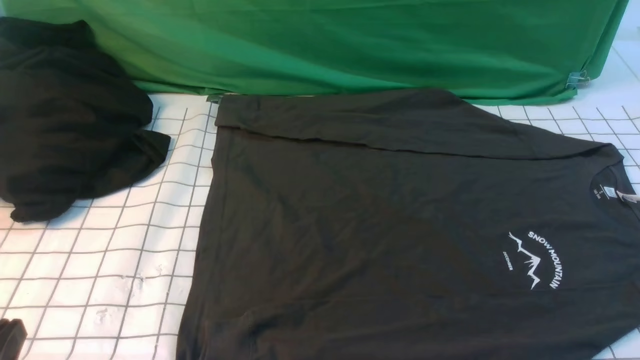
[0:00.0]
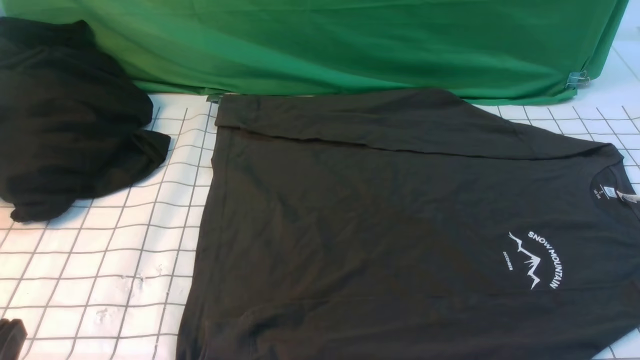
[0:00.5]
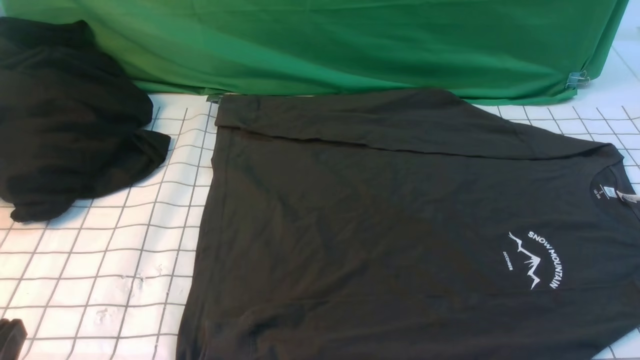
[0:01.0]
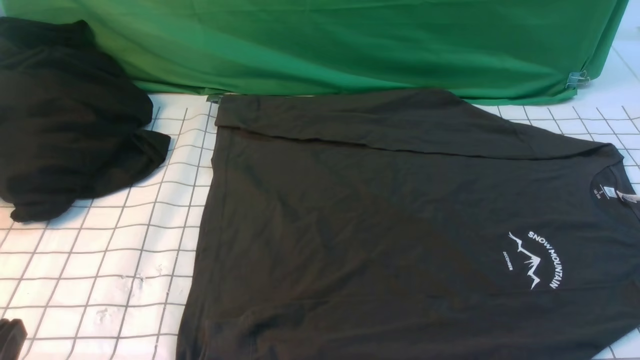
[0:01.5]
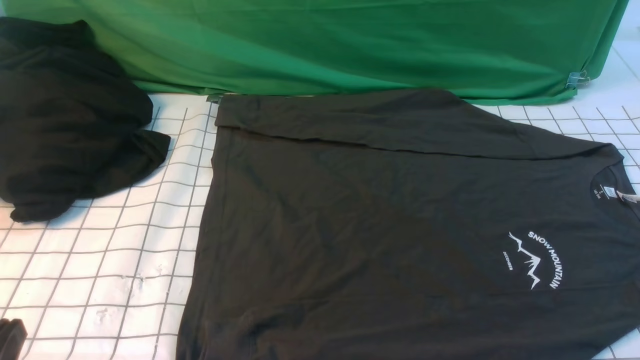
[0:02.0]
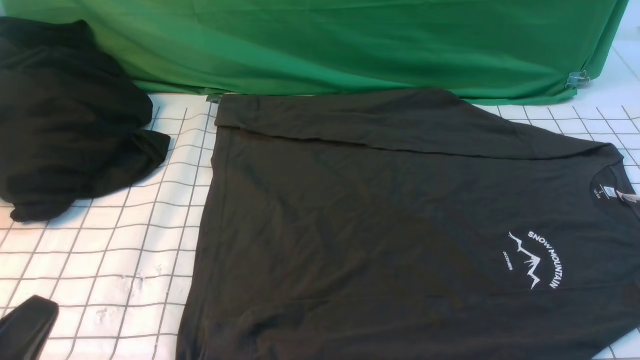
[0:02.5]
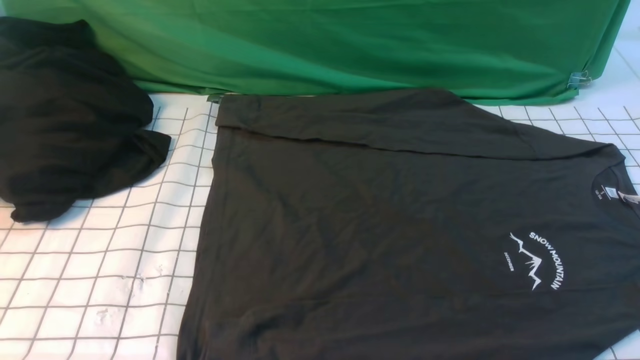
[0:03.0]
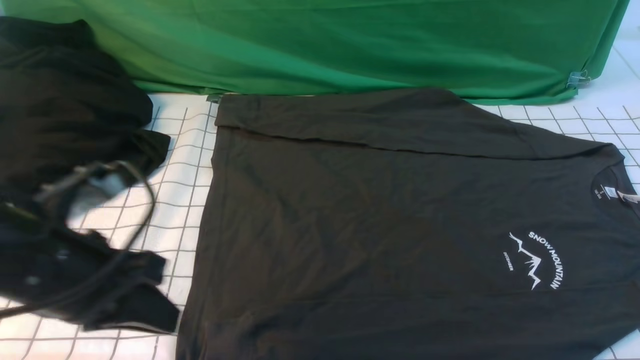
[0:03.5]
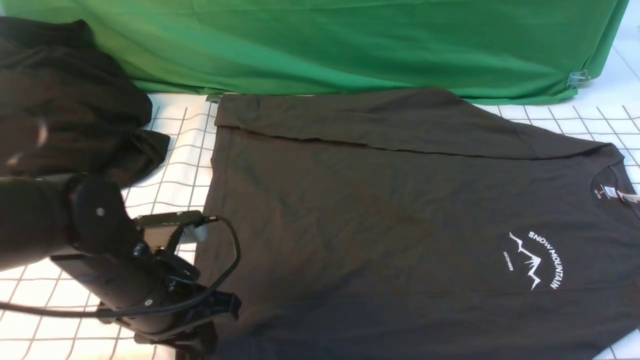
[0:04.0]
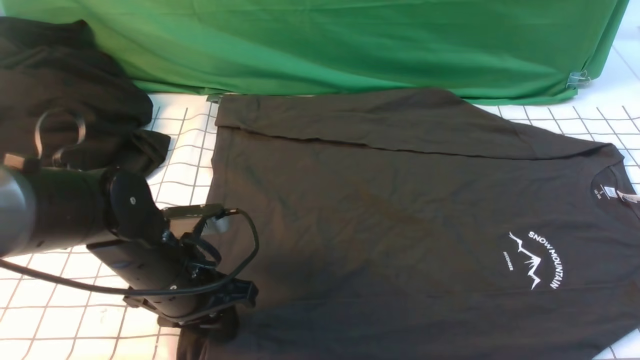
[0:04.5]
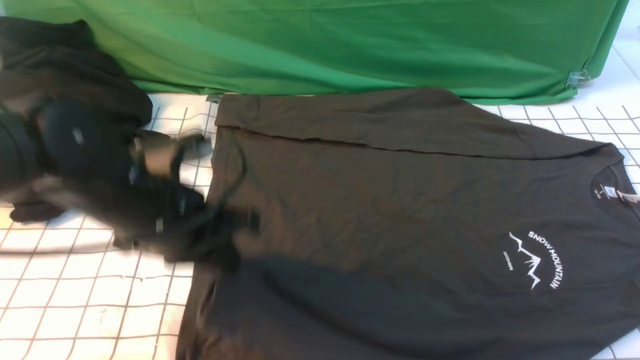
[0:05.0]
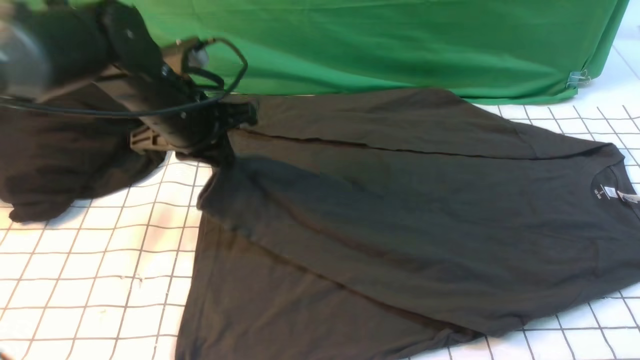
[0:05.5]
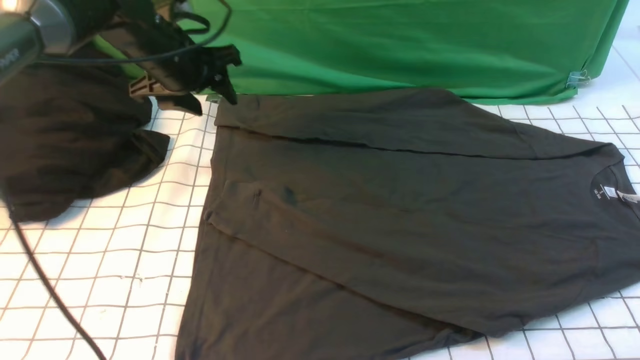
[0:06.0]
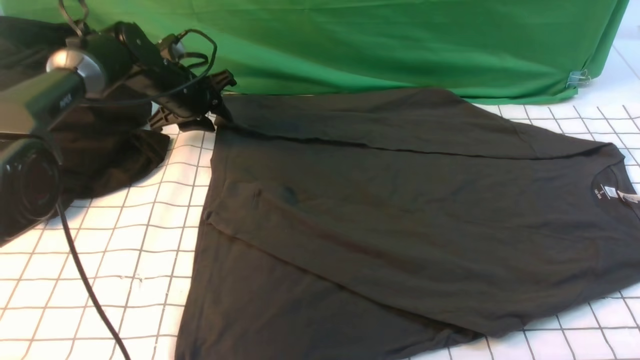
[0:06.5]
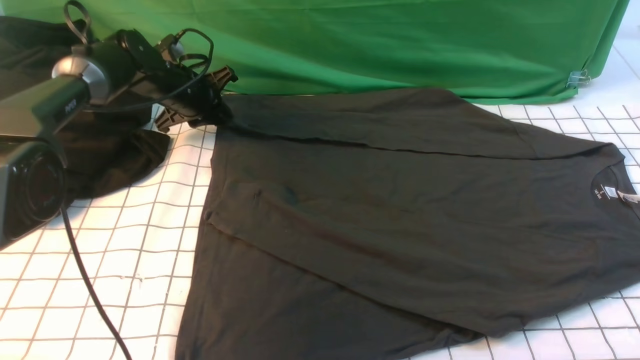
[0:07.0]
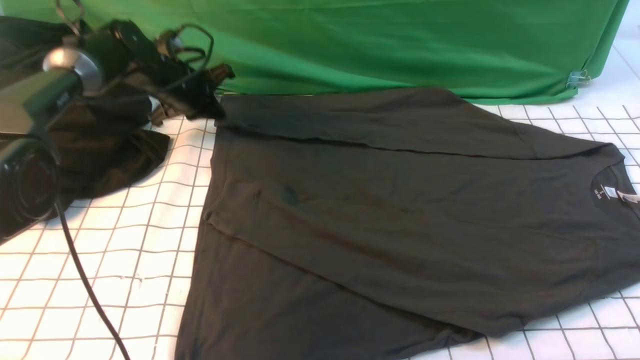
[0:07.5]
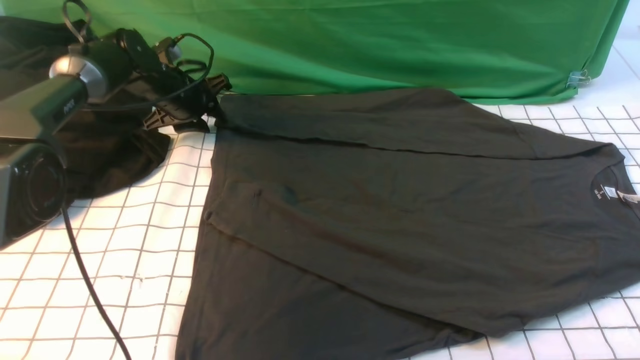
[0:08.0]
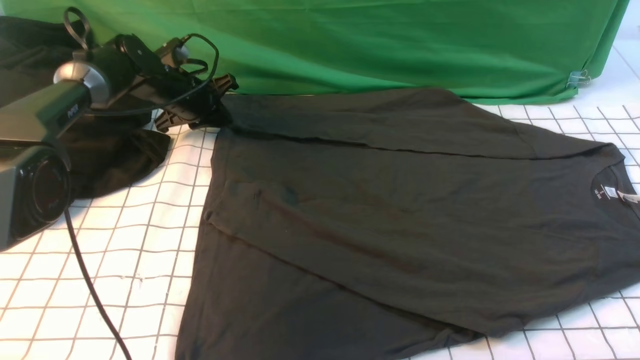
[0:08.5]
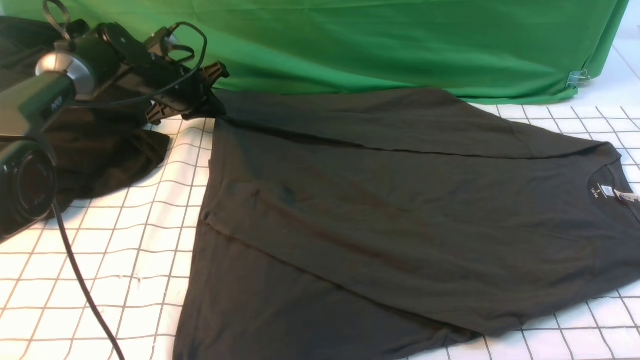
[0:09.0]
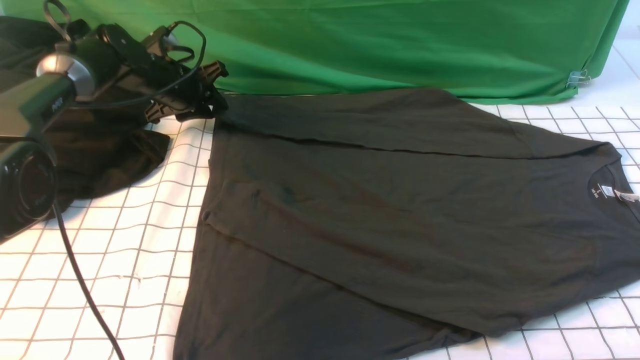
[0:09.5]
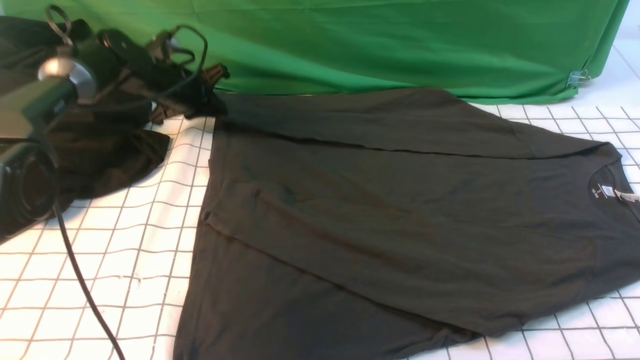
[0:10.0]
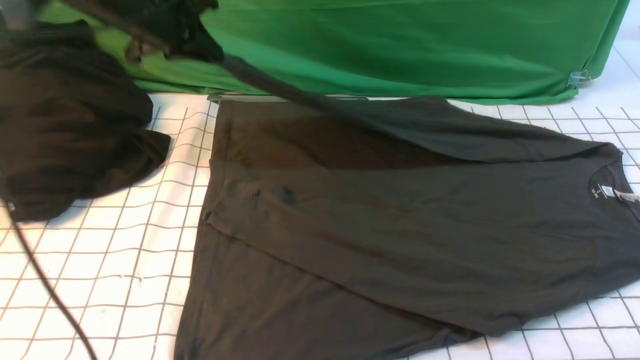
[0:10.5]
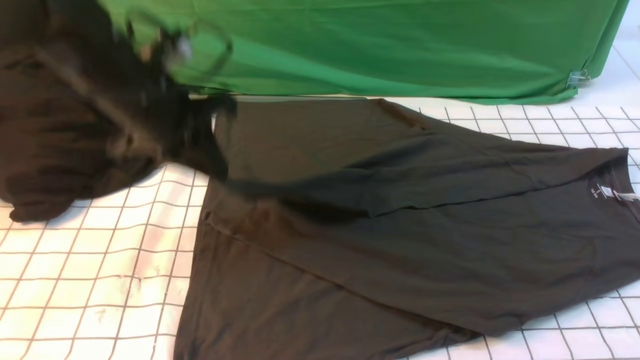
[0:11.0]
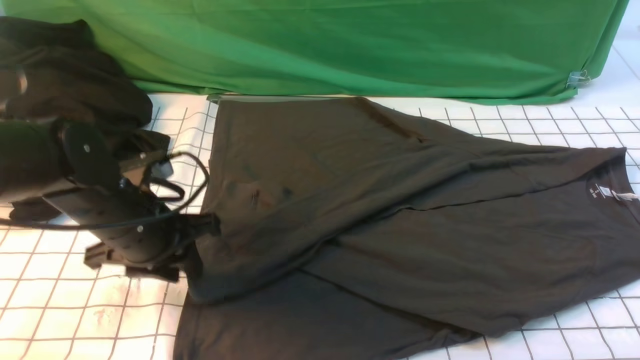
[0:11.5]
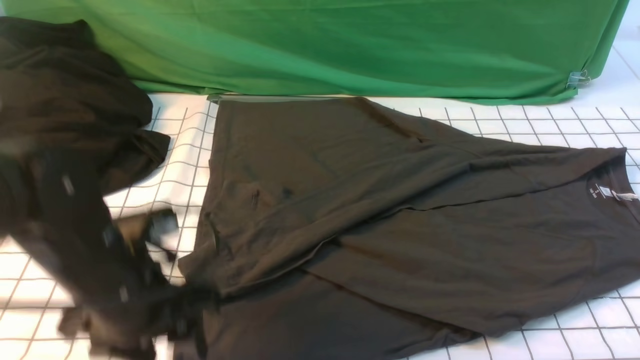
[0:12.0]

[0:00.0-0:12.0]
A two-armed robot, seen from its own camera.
Step, 0:00.0 to 0:04.5: use the left arm to clamp the cuff closest to it.
Step, 0:05.0 to 0:05.5: use the left arm to drag and place the cuff at the centered position on the left edge of the fabric.
Step, 0:06.0 to 0:09.5: use the left arm to clamp the cuff farthest from it.
Step, 0:10.5 to 0:11.5: use the left arm to drag and drop the cuff onto the cuff closest to the left arm.
0:02.0 to 0:04.0: The left gripper goes approximately 20 cm forward and to the right, and opens its fingers. Meanwhile the right gripper heads upward and forward, covering some 15 cm, and closes up.
0:04.0 to 0:06.0: The left gripper shifts some 25 cm forward, and opens up.
0:06.0 to 0:08.0: The left gripper travels downward and forward by roughly 10 cm, and closes, then opens again.
0:08.0 to 0:10.0: The left gripper closes.
0:10.0 to 0:12.0: The left gripper heads backward, covering approximately 30 cm, and opens its fingers.

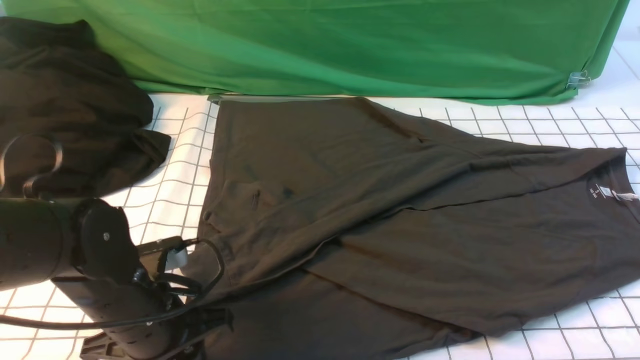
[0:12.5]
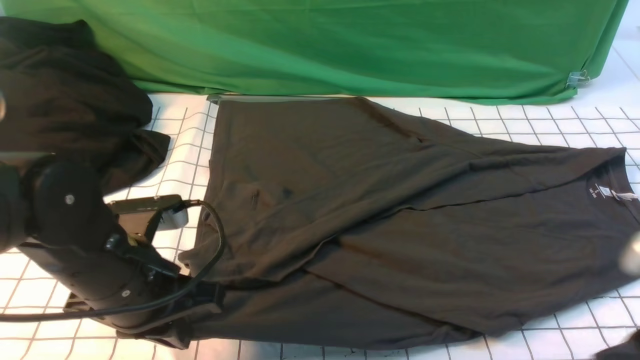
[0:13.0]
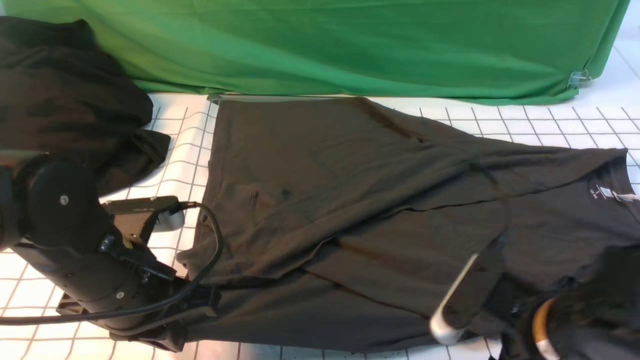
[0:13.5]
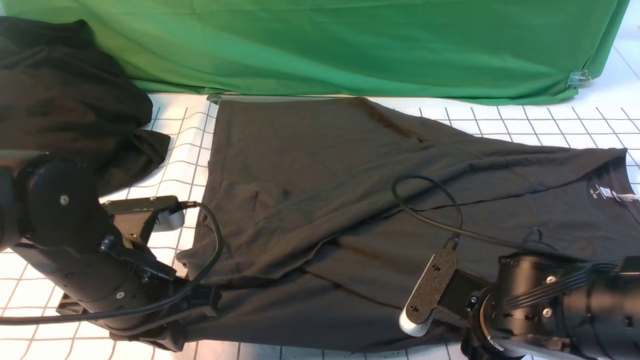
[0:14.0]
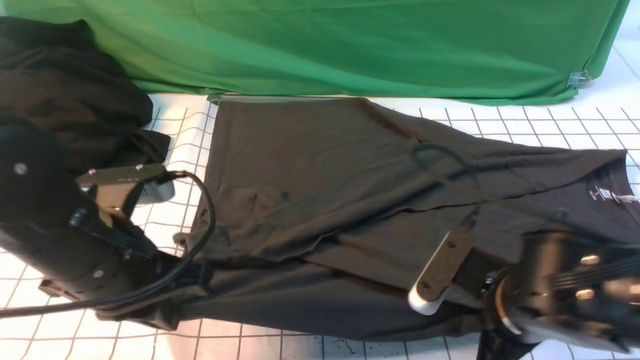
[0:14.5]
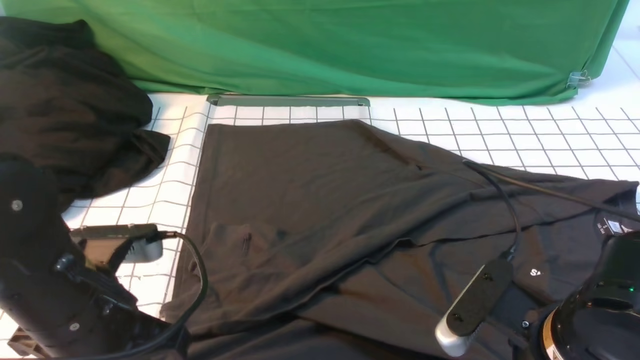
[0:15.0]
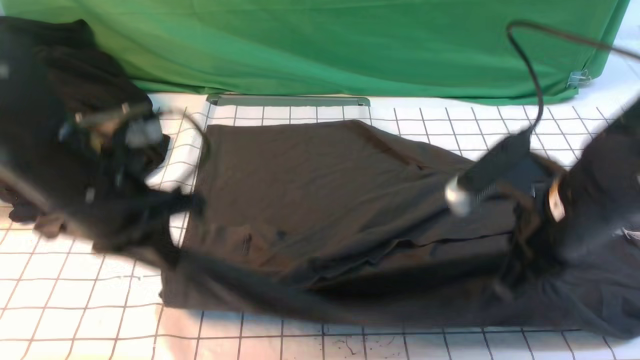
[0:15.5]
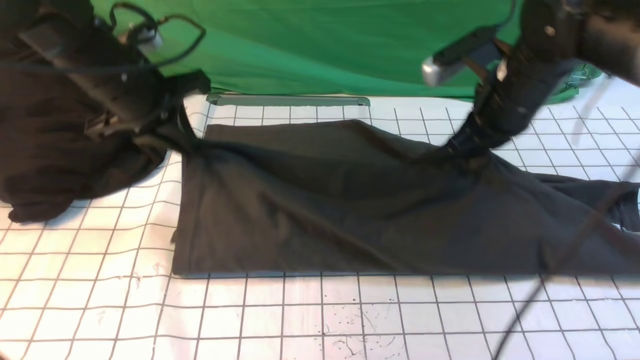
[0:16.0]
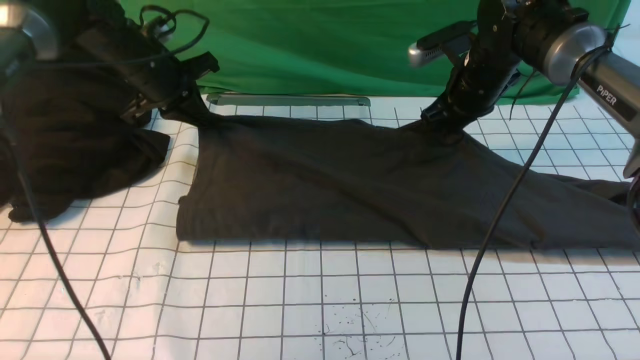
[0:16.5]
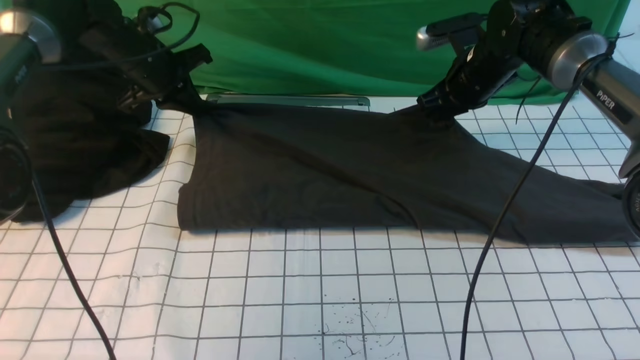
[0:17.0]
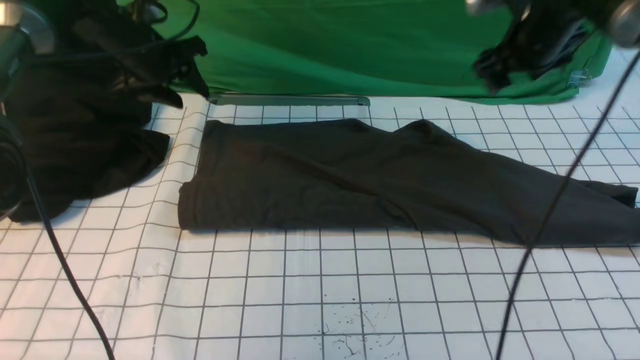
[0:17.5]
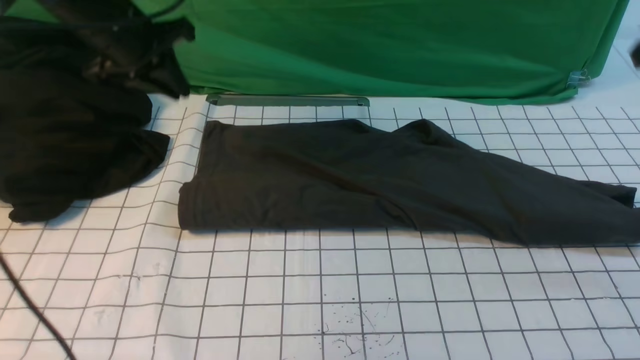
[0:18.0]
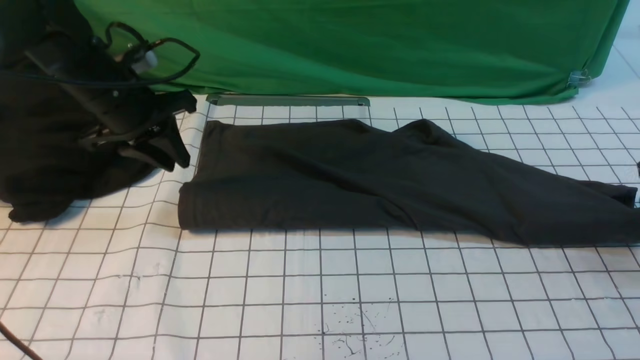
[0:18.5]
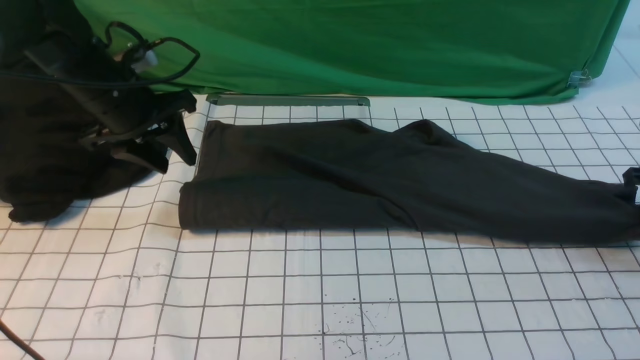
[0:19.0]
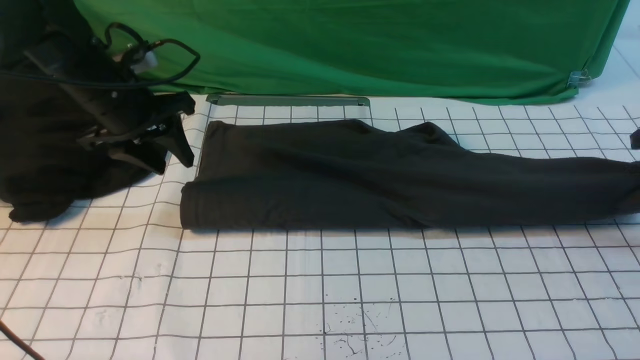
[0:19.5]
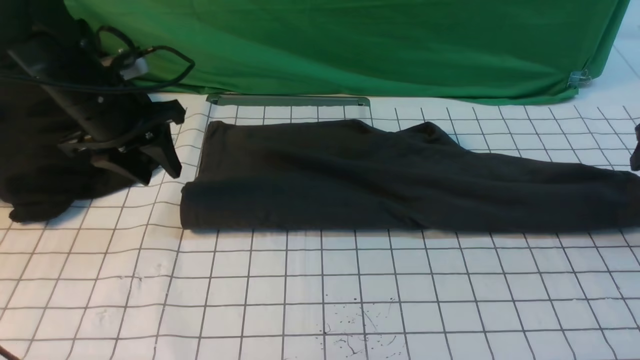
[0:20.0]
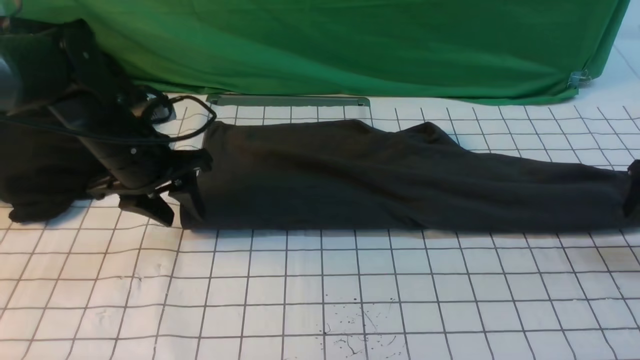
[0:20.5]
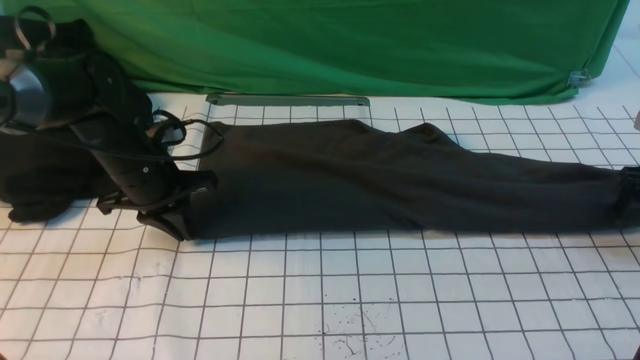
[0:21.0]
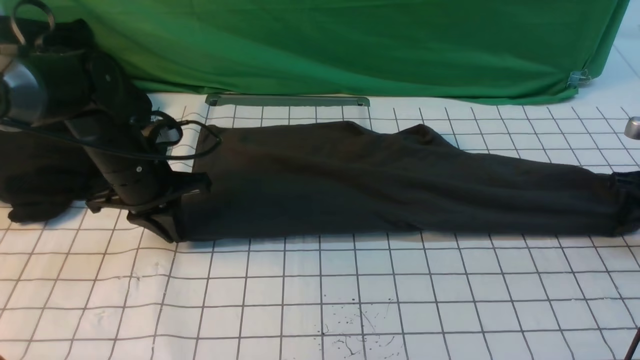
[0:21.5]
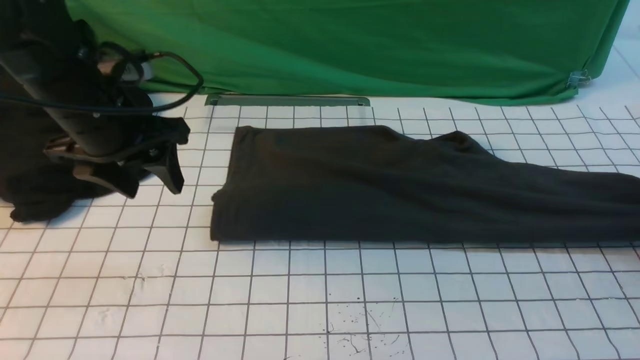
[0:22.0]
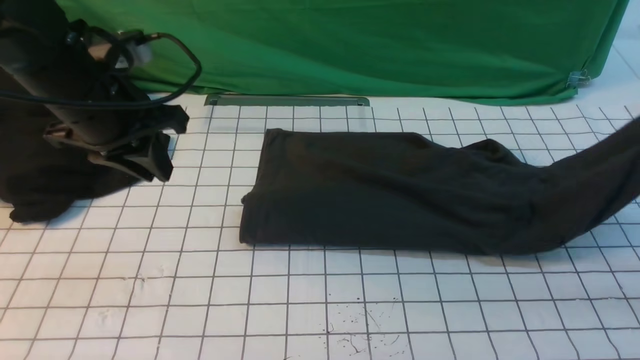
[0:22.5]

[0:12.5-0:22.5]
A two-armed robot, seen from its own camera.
Step, 0:12.5 to 0:14.5: use both arms simultaneously to clamp the lower edge of the clothing fabric.
Step, 0:15.0 to 0:17.5: use both arms to drag the lower edge of the fabric forward and fold it over the upper edge.
Step, 0:18.0 to 0:22.0: use the right arm to clamp the right edge of the fabric.
0:12.5 to 0:14.5: The right gripper is displaced to the left, downward and forward by roughly 20 cm, and opens, then closes again; the left gripper moves upward, some 10 cm, and closes up.
0:14.5 to 0:16.5: The grippers both shift forward by approximately 30 cm.
0:16.5 to 0:18.5: The left gripper travels backward by some 10 cm, and opens; the right gripper goes about 25 cm to the right and backward, and opens up.
0:18.5 to 0:20.5: The left gripper shifts by about 5 cm, and opens up, while the right gripper opens.
0:20.5 to 0:22.5: The left gripper heads upward, covering about 10 cm, and closes its fingers, while the right gripper goes about 15 cm upward and to the left, and closes its fingers.
